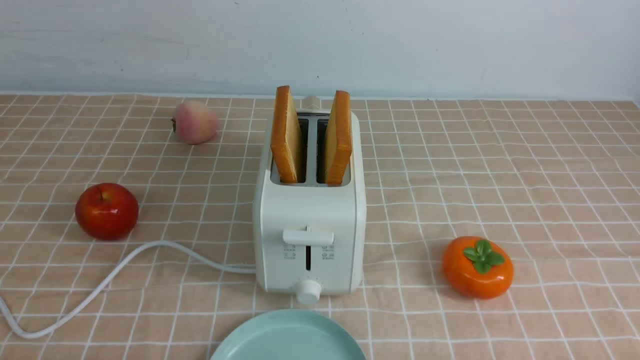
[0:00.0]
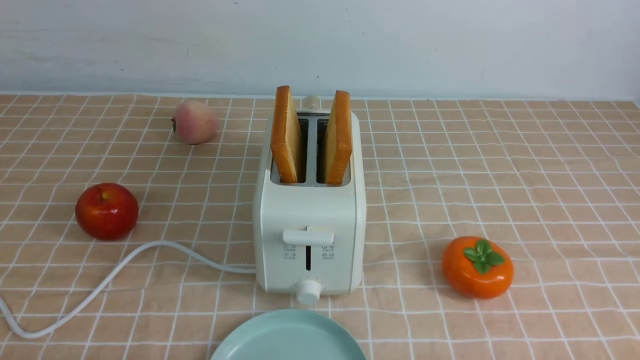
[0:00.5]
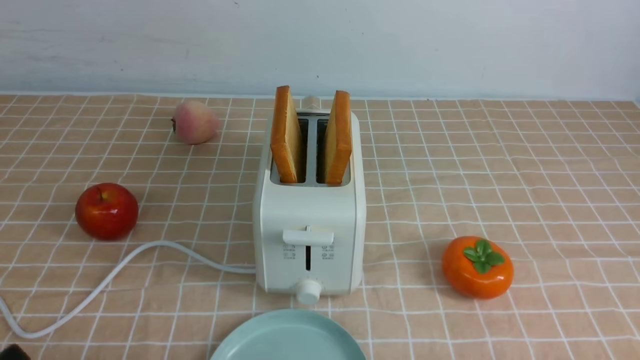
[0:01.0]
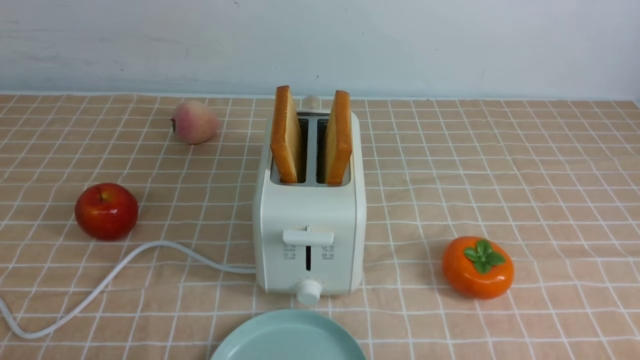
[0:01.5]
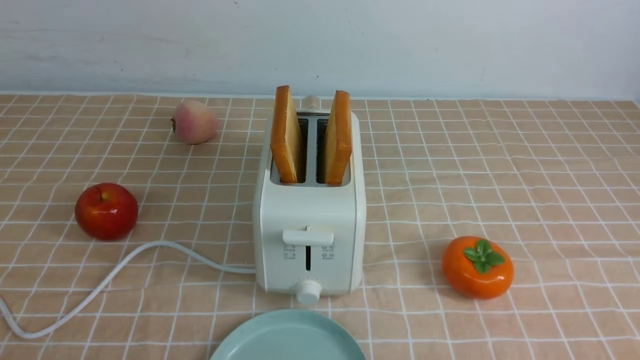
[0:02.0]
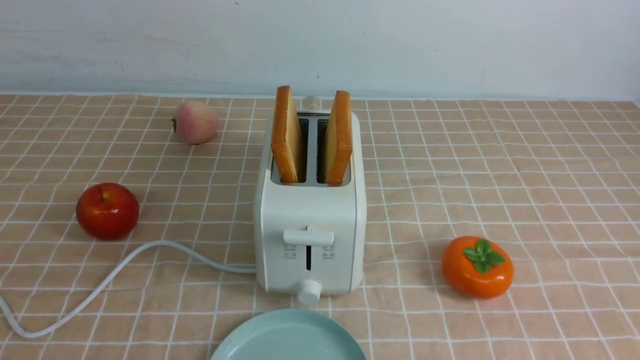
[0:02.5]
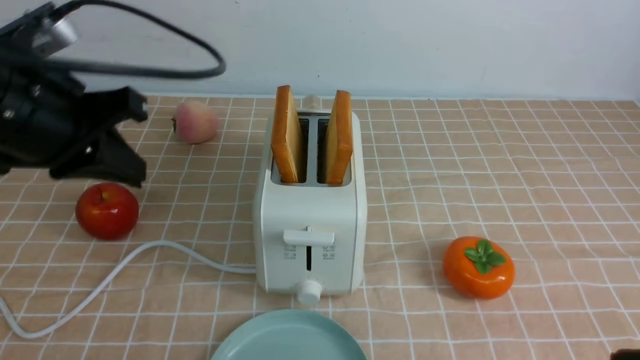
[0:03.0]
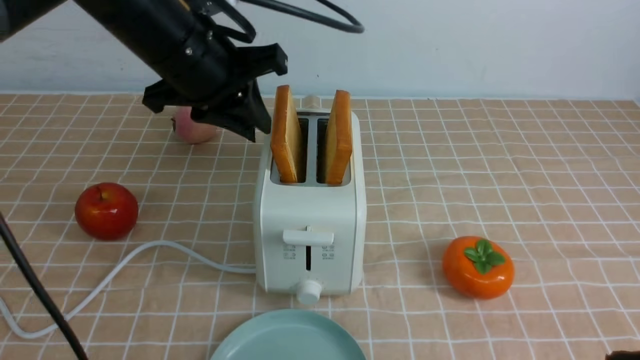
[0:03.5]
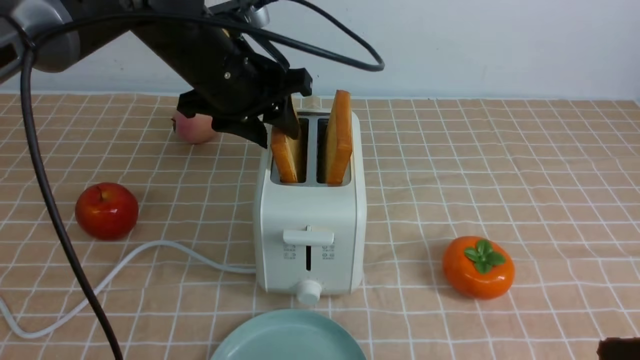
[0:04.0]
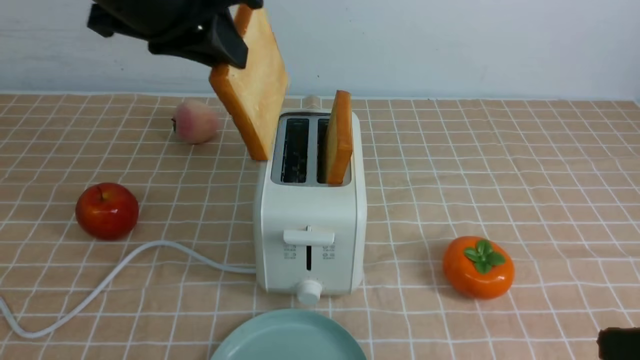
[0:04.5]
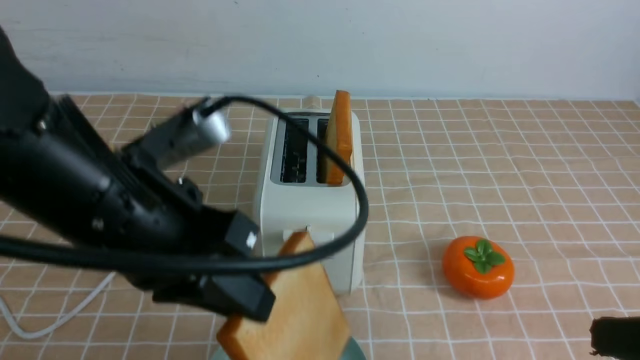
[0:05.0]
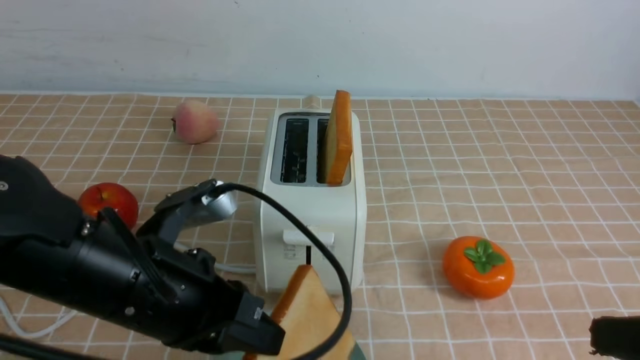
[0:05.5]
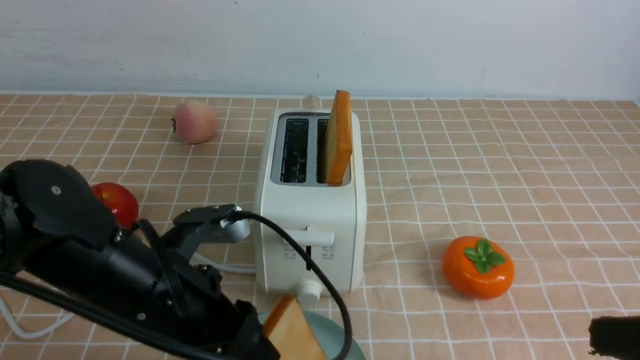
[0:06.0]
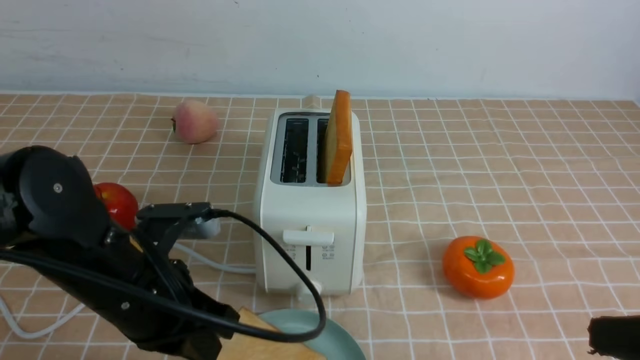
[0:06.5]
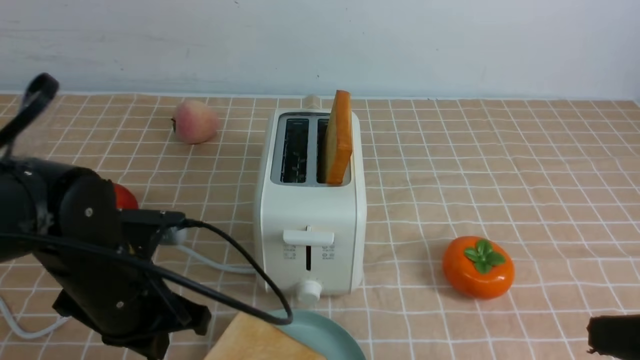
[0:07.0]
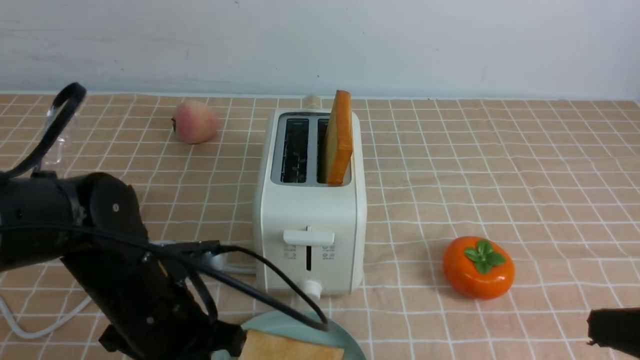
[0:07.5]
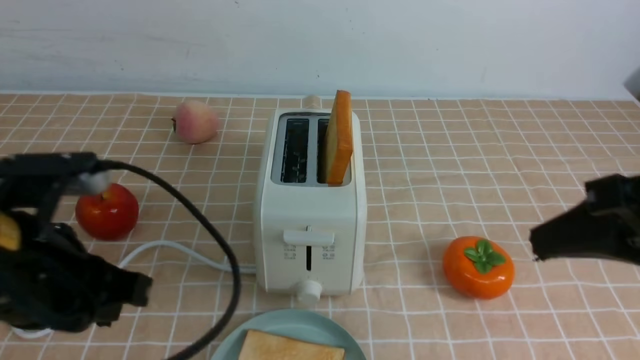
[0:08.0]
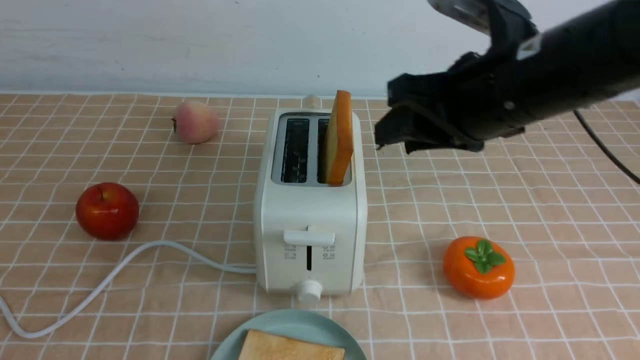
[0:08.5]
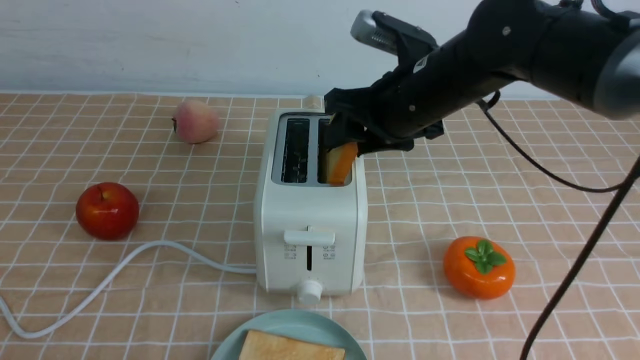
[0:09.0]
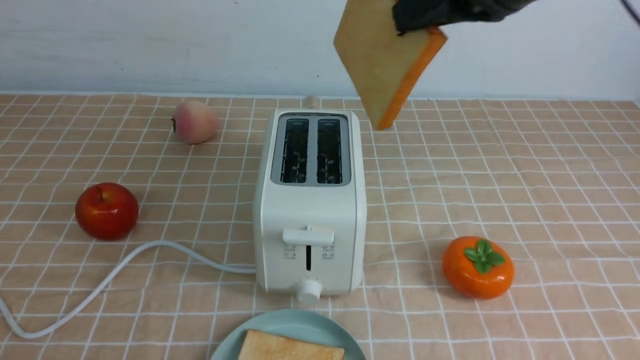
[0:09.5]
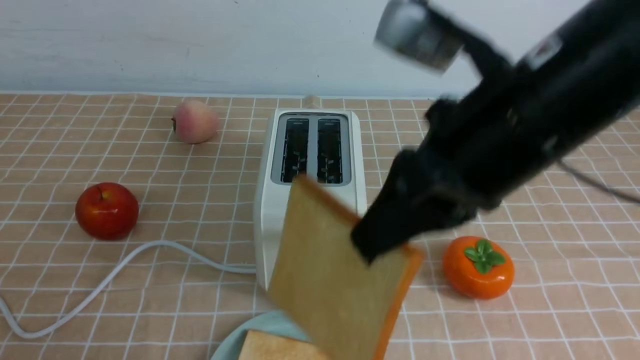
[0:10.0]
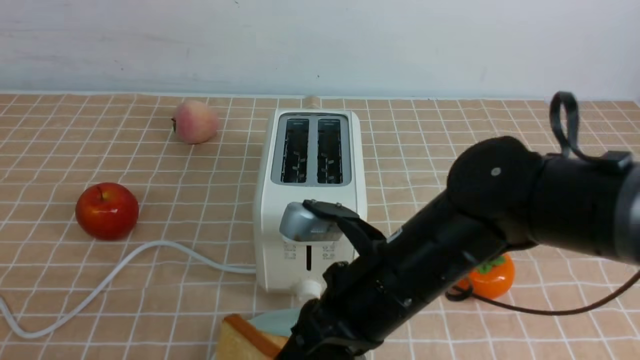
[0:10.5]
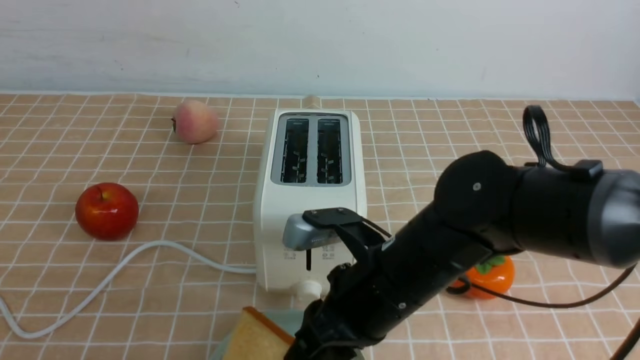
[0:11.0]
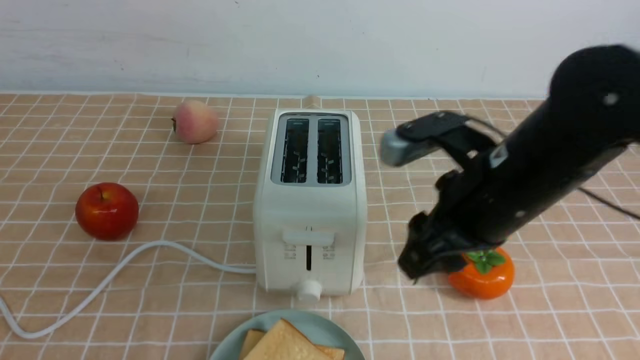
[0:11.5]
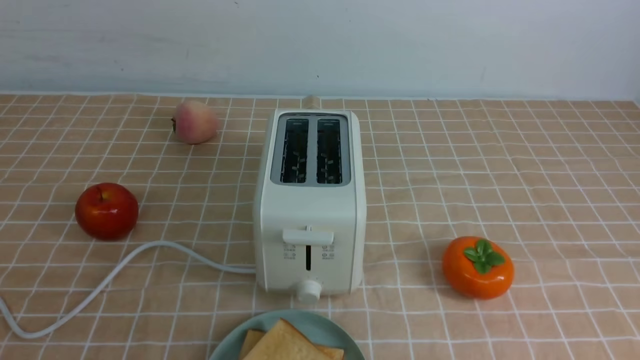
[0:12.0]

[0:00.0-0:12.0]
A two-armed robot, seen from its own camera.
Task of the whole recording: take toasted bread from bread machine on light coffee tablecloth place on plate.
Step, 0.0 to 4.0 s: use the left arm to take out a slice of bread.
Step, 4.5 to 6.5 s: use the left arm to put a slice of bread into the empty plate.
Step, 7.0 to 9.0 s: use the right arm to take out a slice of bread.
Step, 9.5 to 11.0 s: use the right arm to put a slice of bread into the plate.
2.0 to 4.0 s: The left gripper moves forward and to the right, about 40 cm, and opens up. The right gripper shifts approximately 10 cm upward, to the left and forward, and closes its fingers.
4.0 to 6.0 s: The left gripper moves backward and downward, roughly 20 cm, and closes, then reopens.
6.0 to 8.0 s: The left gripper is displaced upward and to the left by some 10 cm, and closes its fingers; the right gripper goes some 10 cm forward and upward.
8.0 to 10.0 s: The left gripper is displaced backward and to the left by roughly 20 cm, while the right gripper goes about 10 cm to the left, travels forward and back again, about 20 cm each way, and opens, then closes once more.
10.0 to 12.0 s: The right gripper heads to the right and backward, covering approximately 20 cm, and opens and closes again. Meanwhile the left gripper moves roughly 5 cm.

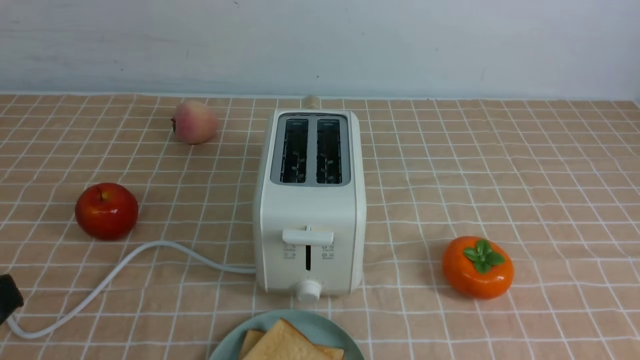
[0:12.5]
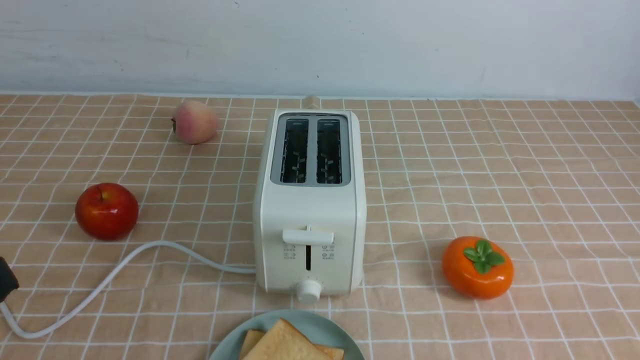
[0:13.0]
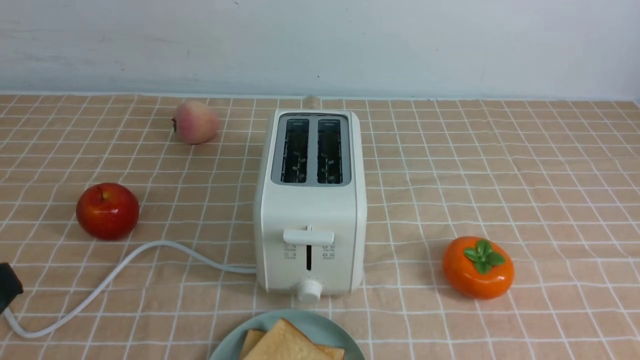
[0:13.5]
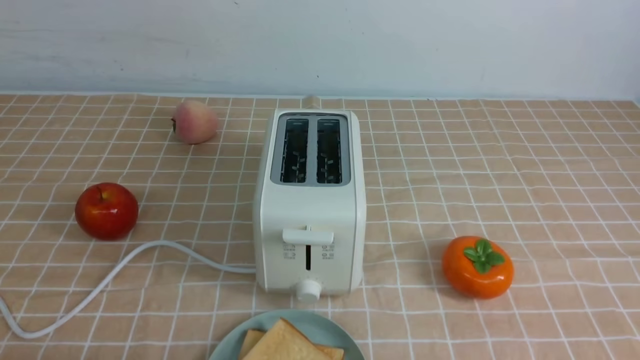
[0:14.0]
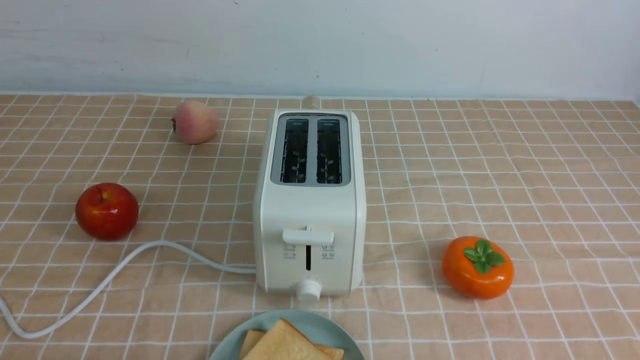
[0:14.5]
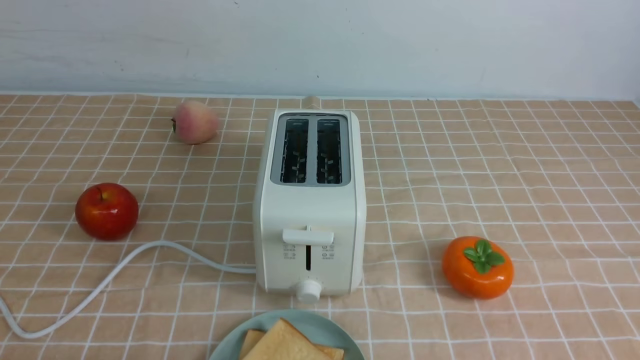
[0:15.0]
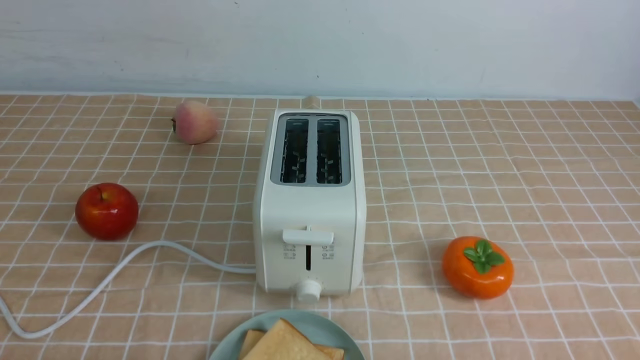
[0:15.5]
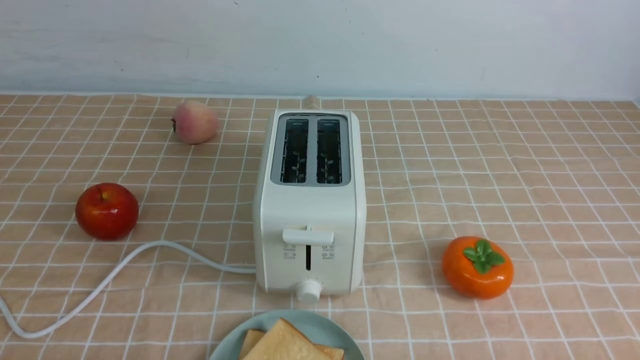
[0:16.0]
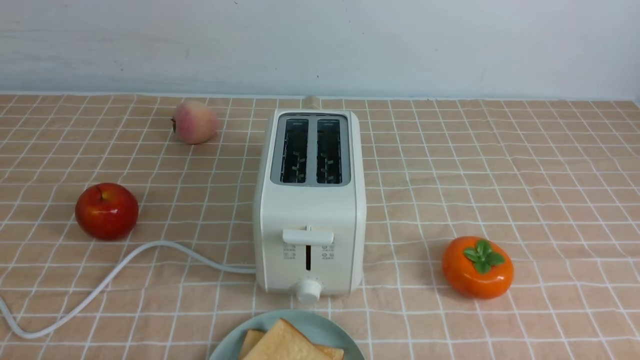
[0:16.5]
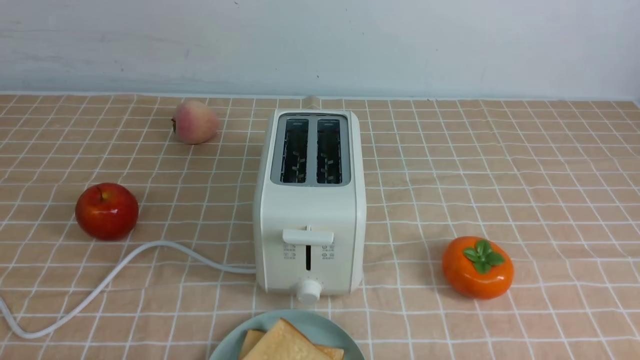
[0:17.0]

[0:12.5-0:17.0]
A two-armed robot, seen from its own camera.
Task of the whole recording: take toasted bread from bread machine on light coffee tablecloth place on plate.
12.5 to 14.5 s: The left gripper moves downward, some 15 cm.

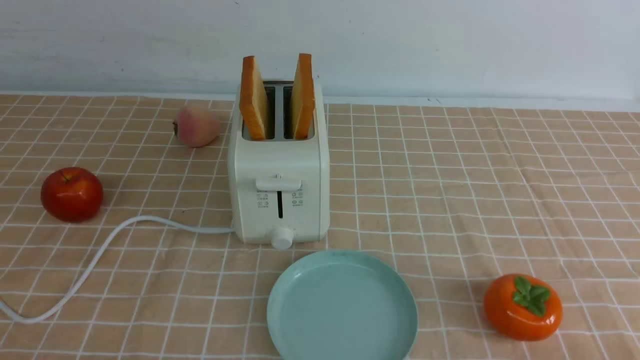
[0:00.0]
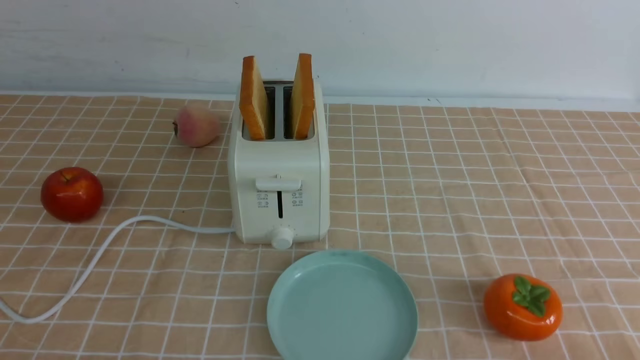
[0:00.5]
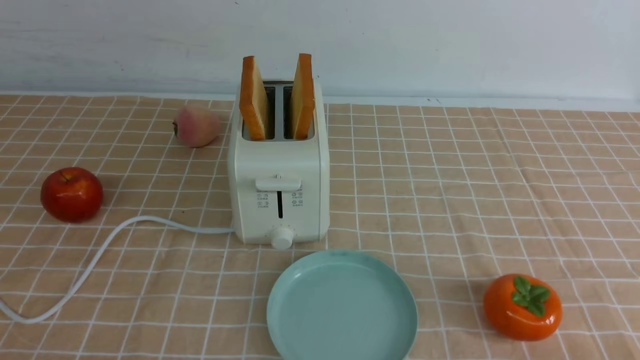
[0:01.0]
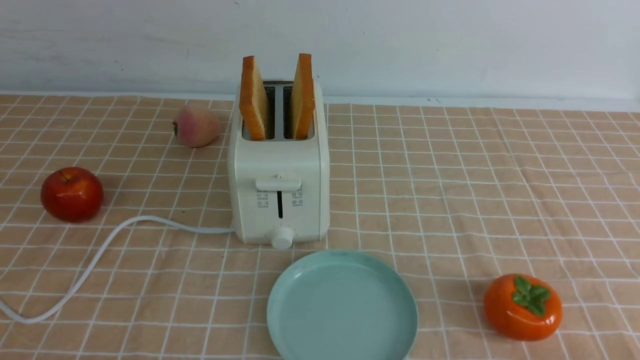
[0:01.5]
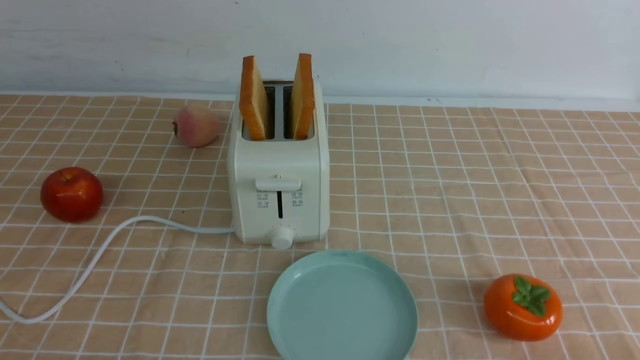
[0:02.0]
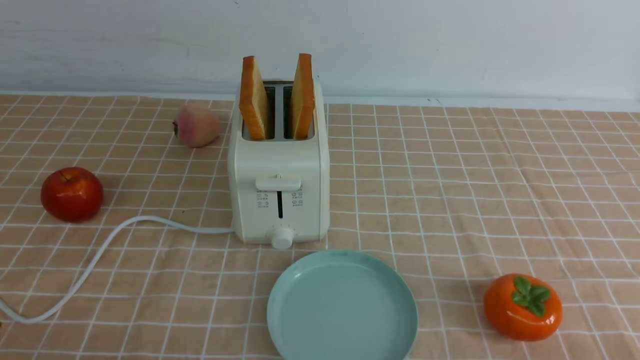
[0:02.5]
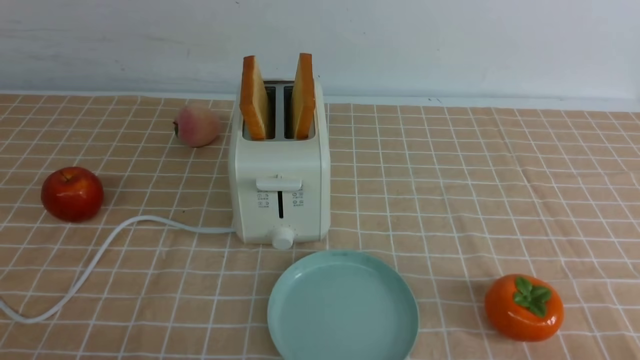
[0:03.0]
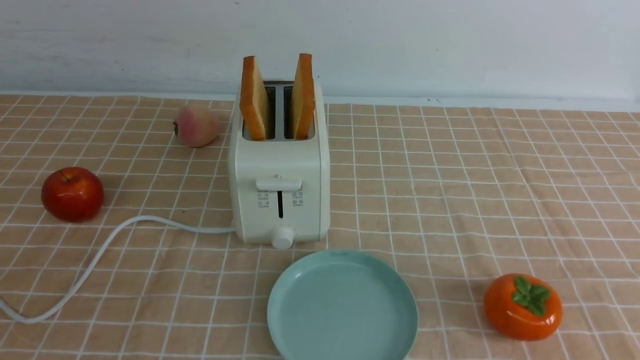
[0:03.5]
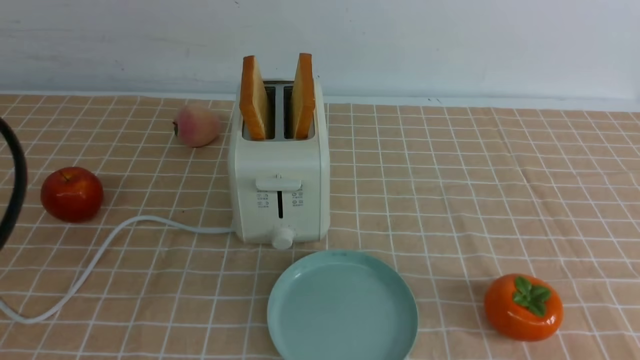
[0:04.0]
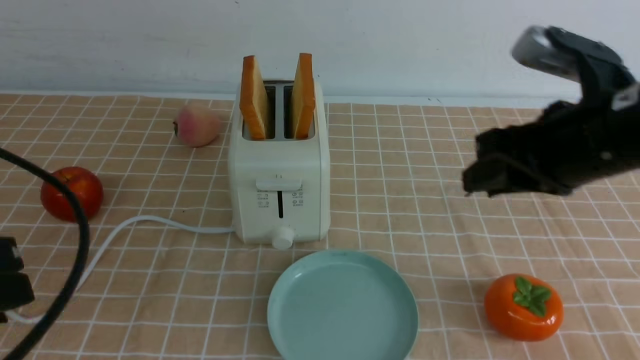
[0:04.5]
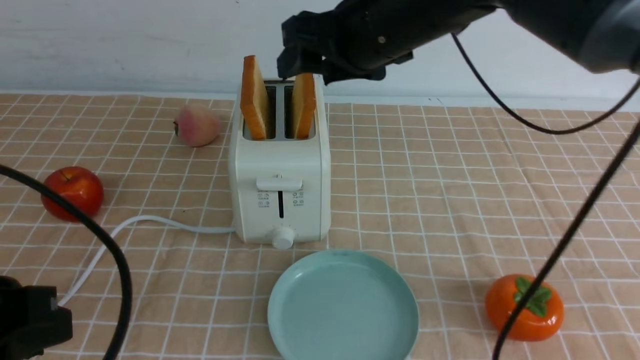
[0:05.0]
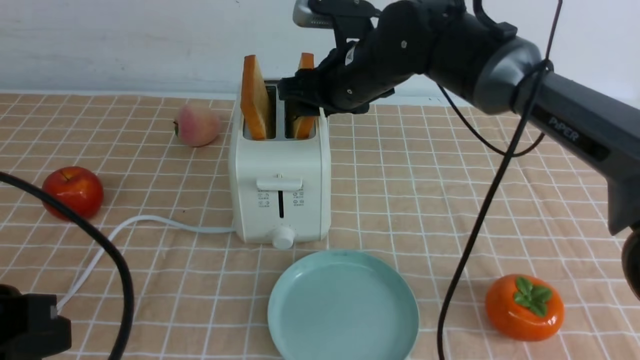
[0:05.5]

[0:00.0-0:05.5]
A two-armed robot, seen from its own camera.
Task of the whole recording: take toasted bread from bread machine on light coffee tablecloth place on plate.
0.0 to 2.0 s: Both grippers stay about where they are.
3.5 to 5.5 s: The right gripper is displaced forward and to the left by about 50 cm. Meanwhile the left gripper heads forward, covering approximately 5 cm.
